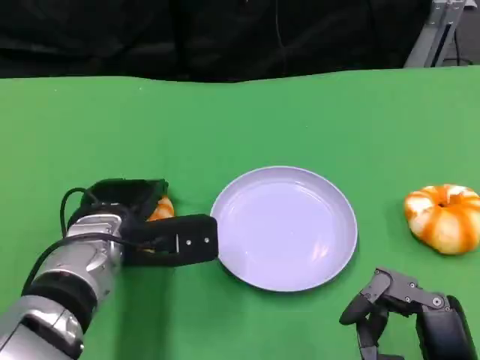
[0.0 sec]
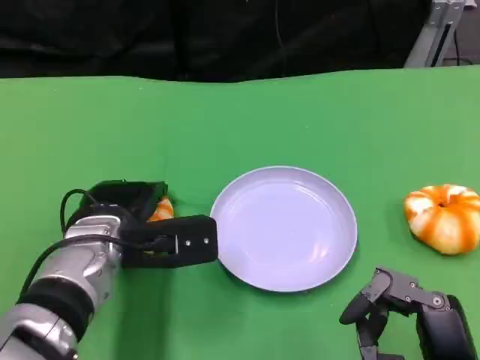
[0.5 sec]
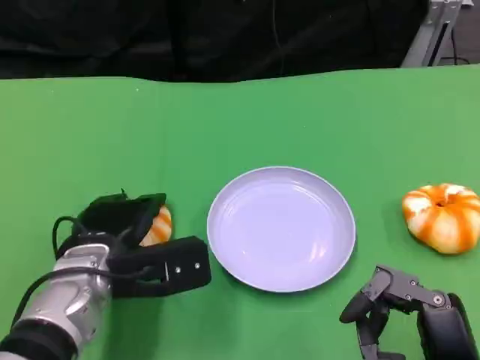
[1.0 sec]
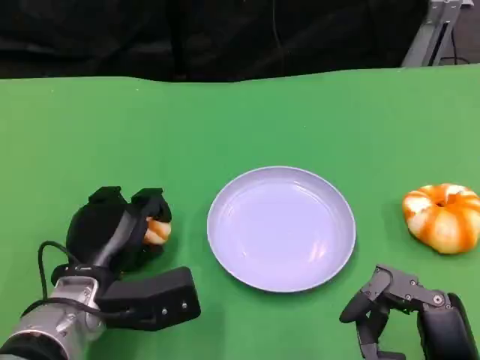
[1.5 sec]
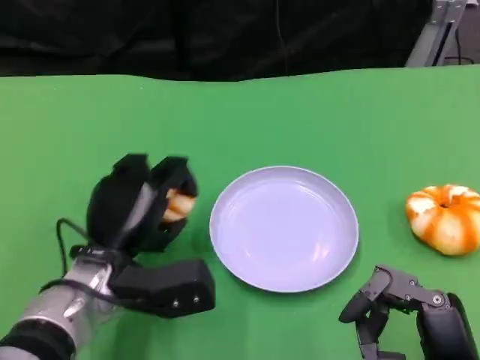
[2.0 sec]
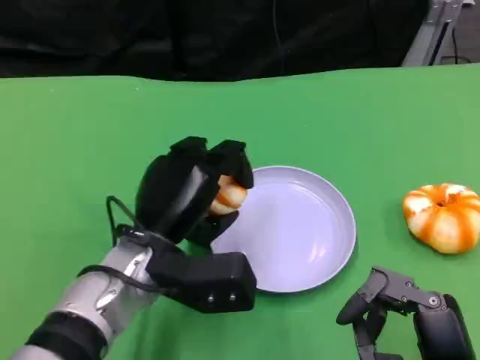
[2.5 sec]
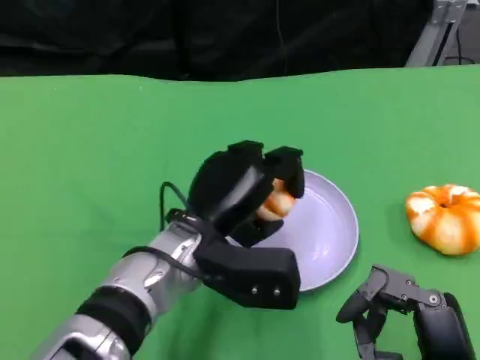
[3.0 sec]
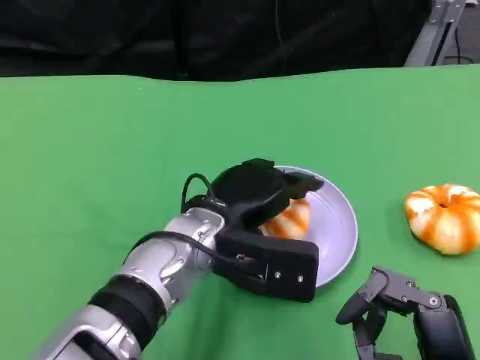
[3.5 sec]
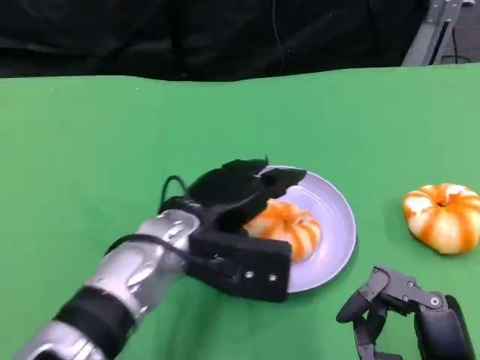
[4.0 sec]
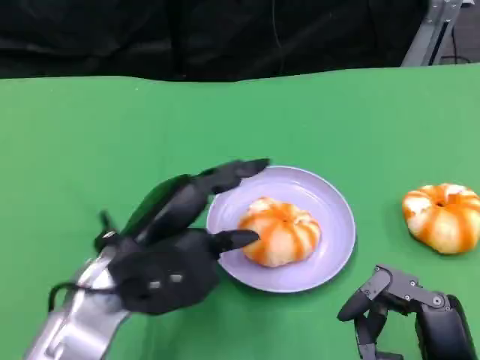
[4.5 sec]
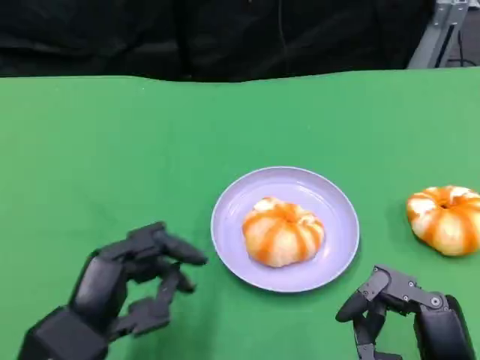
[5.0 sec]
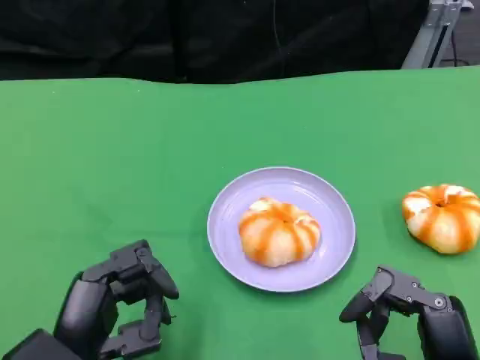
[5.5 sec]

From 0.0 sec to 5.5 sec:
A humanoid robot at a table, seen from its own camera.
Task of the whole recording: Grasp the bread from the table and place it into the plate.
From 2.0 sec to 3.5 sec: The left hand heads to the right, covering approximately 10 cm.
From 3.5 sec to 5.5 sec: The left hand heads to the left and backward, covering about 20 cm.
